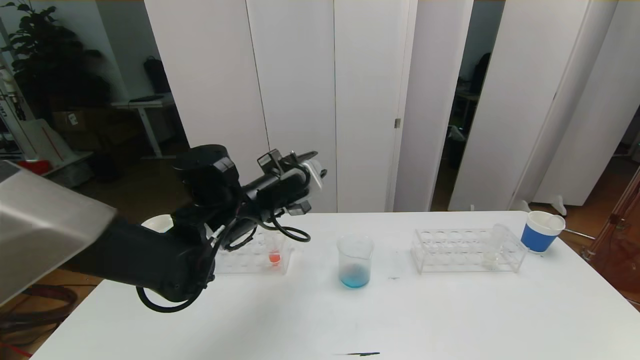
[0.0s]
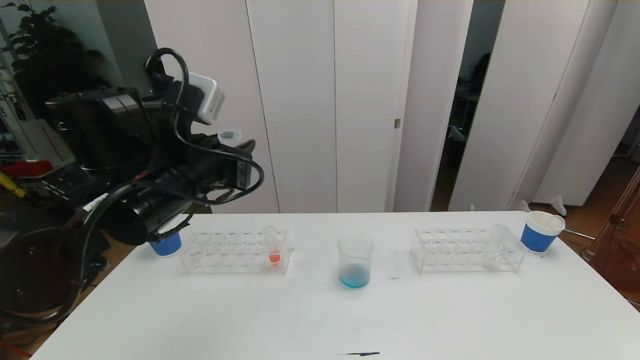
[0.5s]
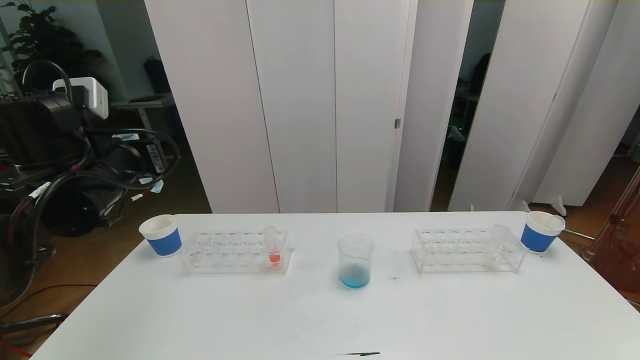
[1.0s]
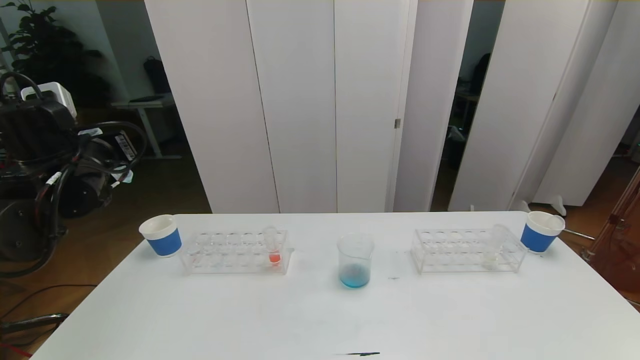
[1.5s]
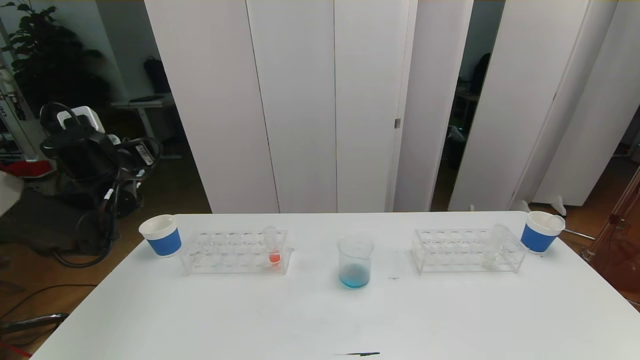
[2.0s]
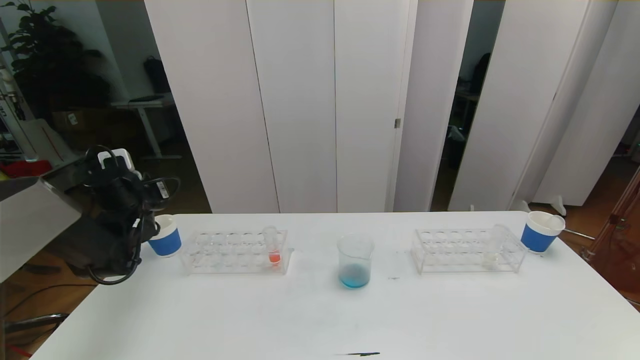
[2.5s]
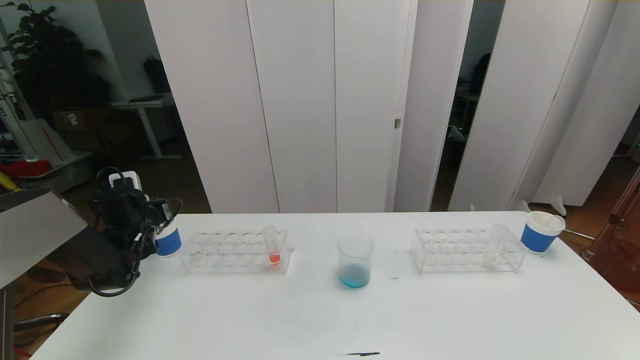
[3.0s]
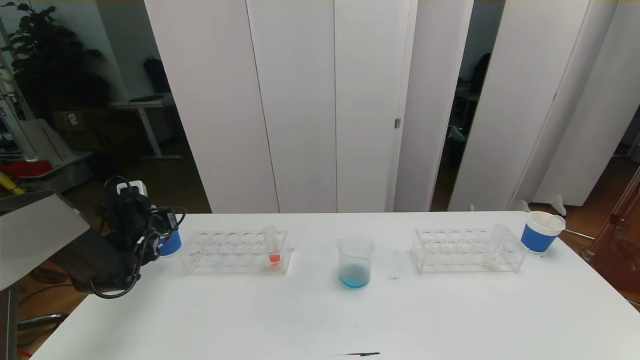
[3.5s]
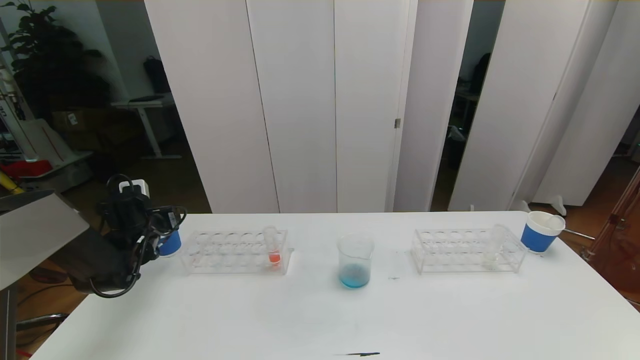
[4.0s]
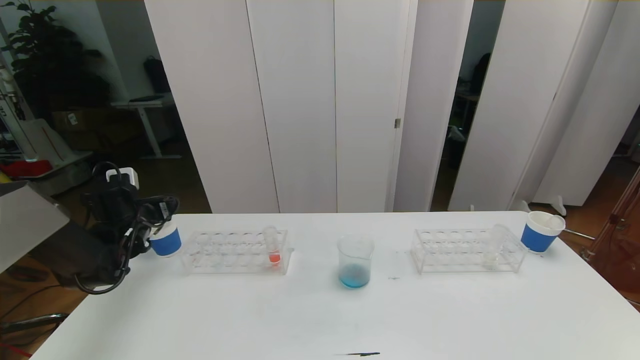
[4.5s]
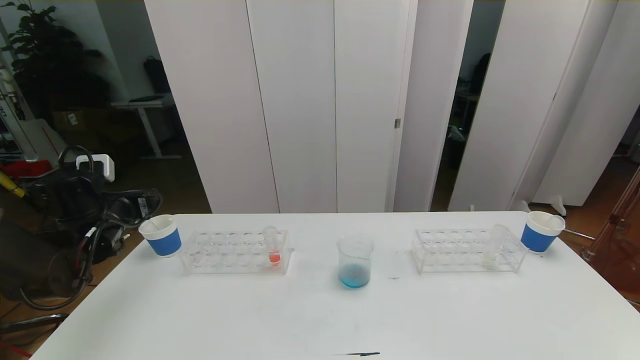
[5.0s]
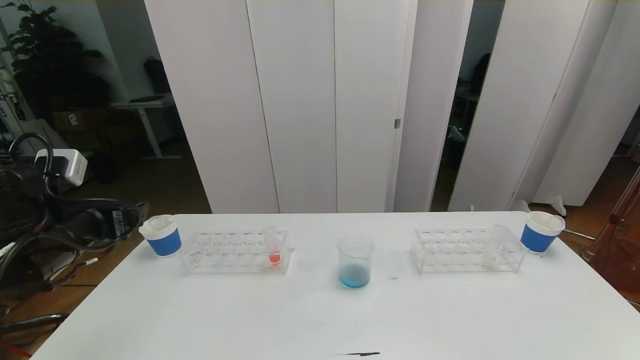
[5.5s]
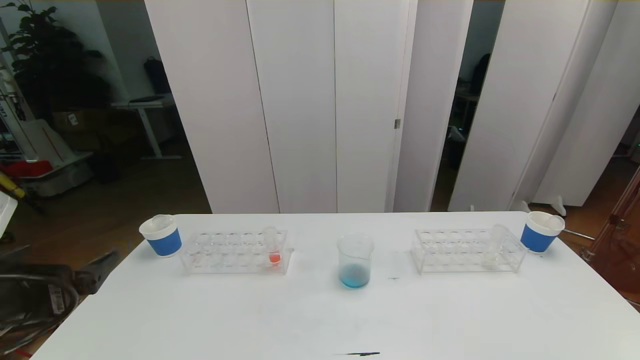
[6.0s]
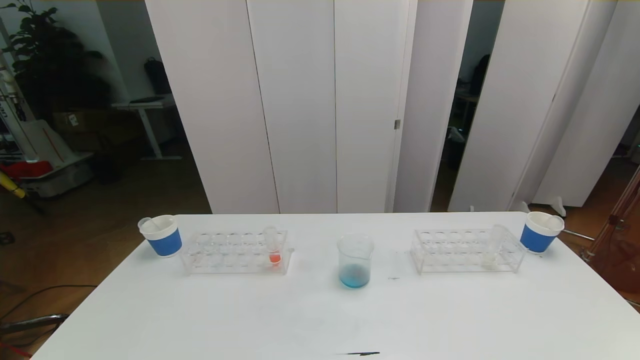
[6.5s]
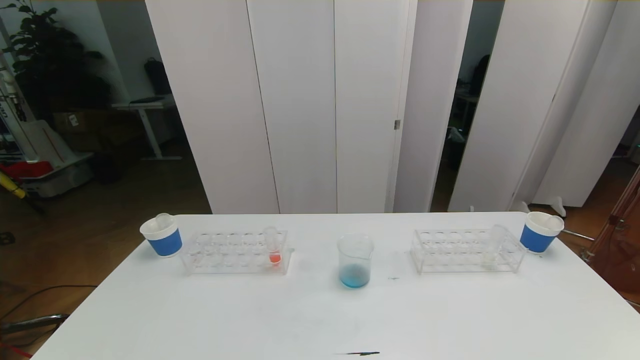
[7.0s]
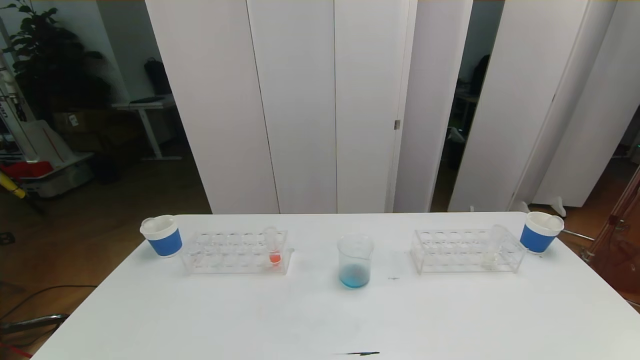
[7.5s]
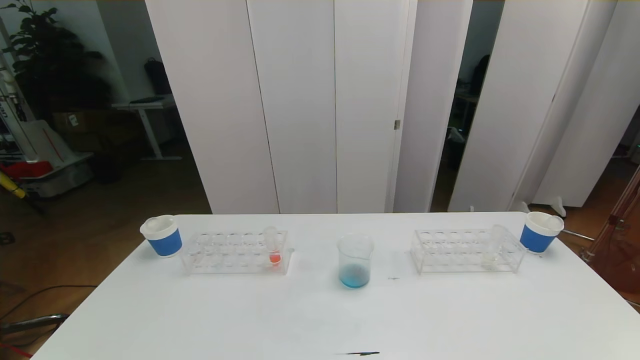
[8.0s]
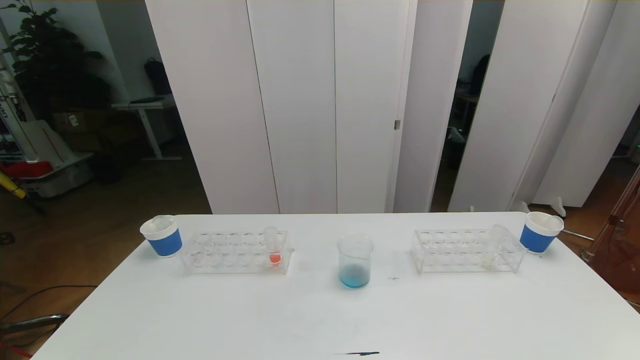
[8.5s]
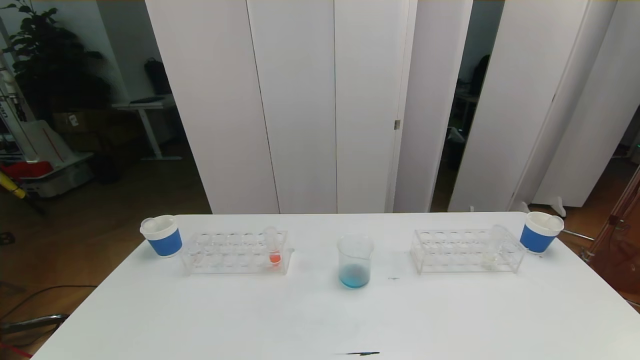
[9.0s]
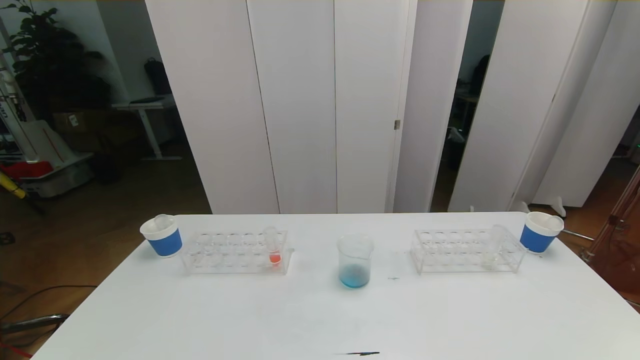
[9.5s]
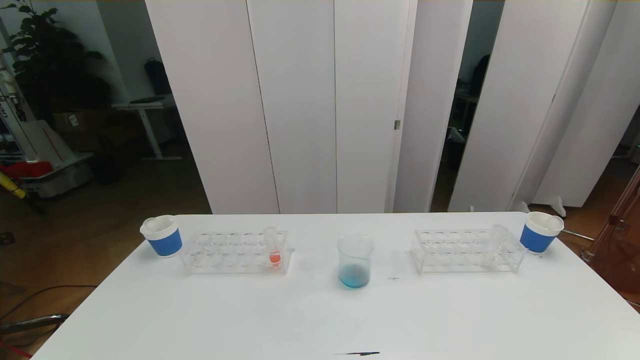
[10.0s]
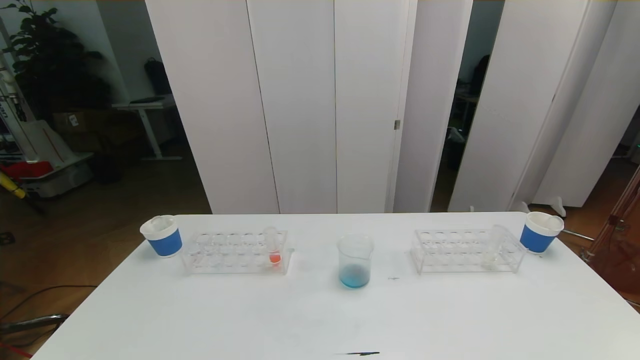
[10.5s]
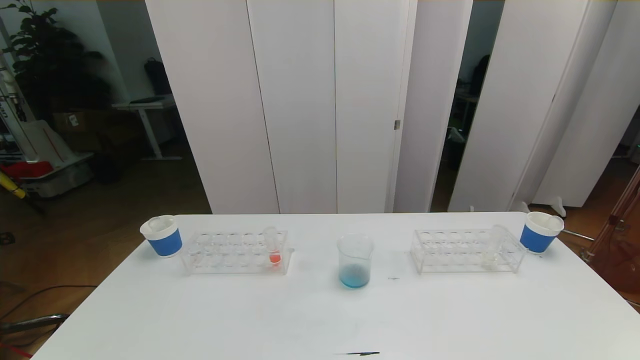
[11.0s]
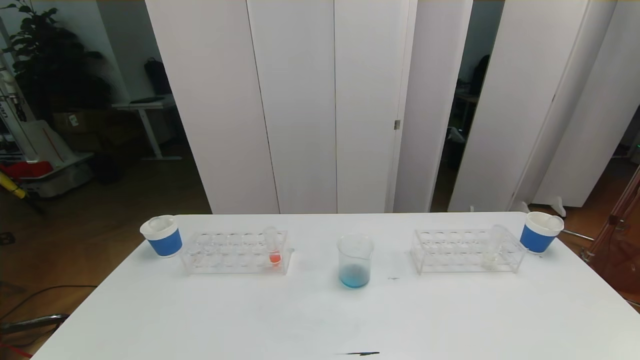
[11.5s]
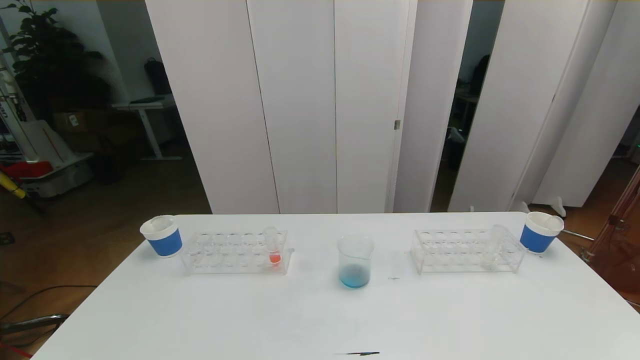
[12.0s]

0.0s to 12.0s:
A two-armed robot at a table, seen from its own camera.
Task of the whole recording: pick up the test tube with red pigment the test tube with blue pigment and the test tube with white pigment by grippers and pour them into the beaker.
Step, 0.0s to 9.0s: Pour the blue reagent into the graduated cylinder and place the test tube into the paper cup.
0.0s to 2.0s: The left gripper is displaced to the left by roughly 20 cm.
2.0s to 4.0s: The left gripper moves downward, about 15 cm, and opens its fingers.
4.0s to 6.0s: The left gripper goes about 30 cm backward and upward.
6.0s to 8.0s: The left gripper travels backward and downward by approximately 20 cm.
8.0s to 12.0s: The two grippers keep their place.

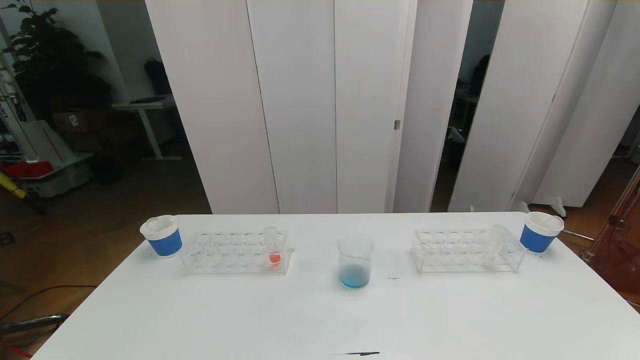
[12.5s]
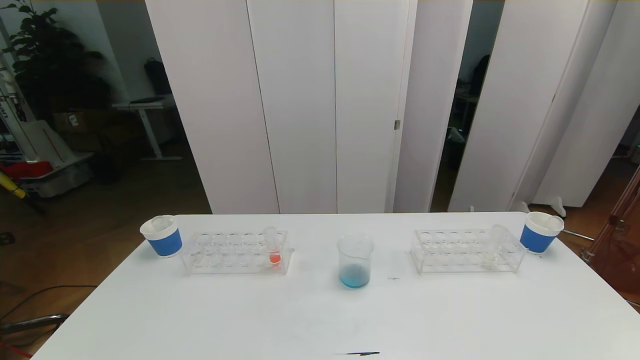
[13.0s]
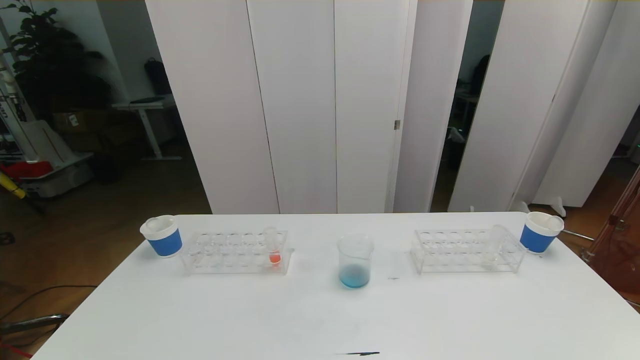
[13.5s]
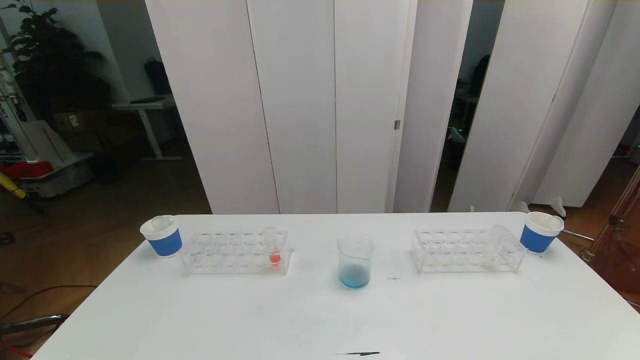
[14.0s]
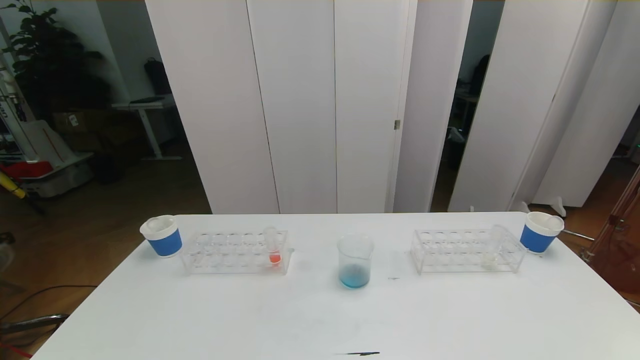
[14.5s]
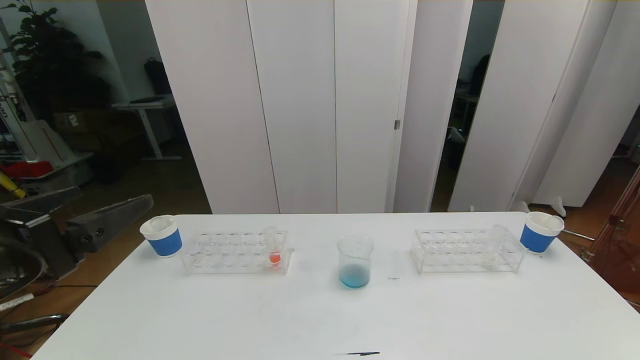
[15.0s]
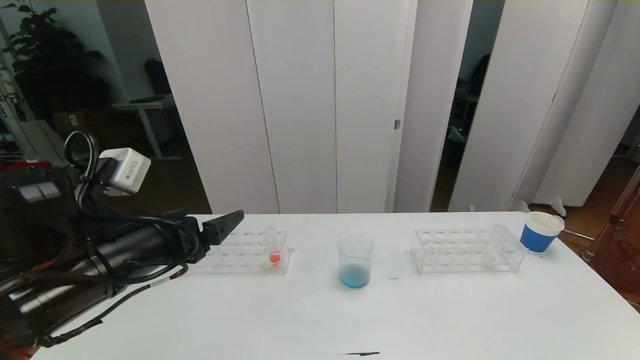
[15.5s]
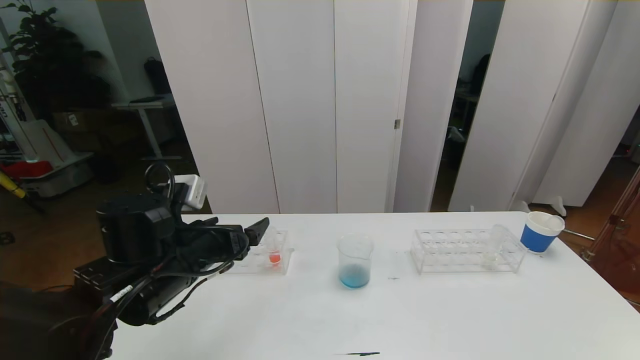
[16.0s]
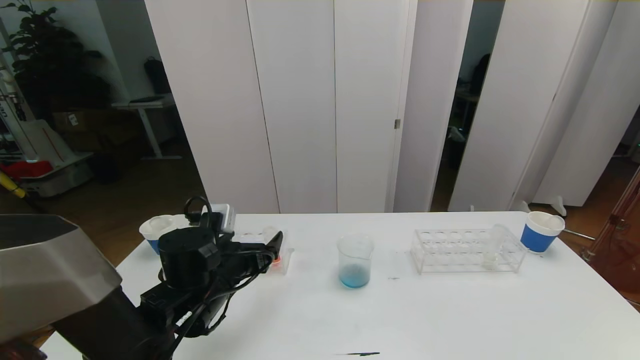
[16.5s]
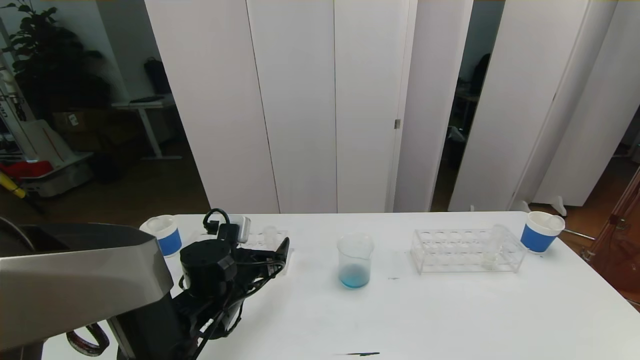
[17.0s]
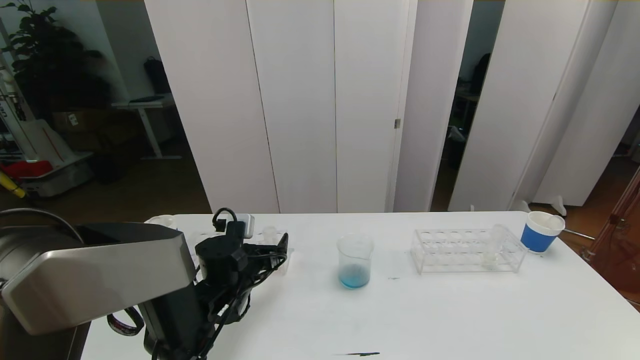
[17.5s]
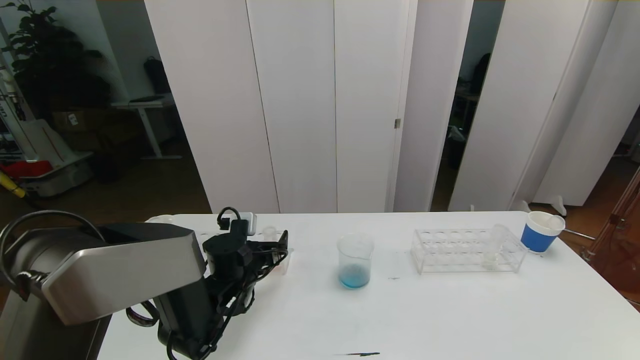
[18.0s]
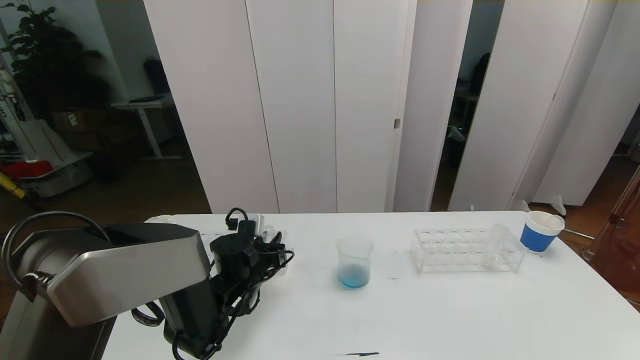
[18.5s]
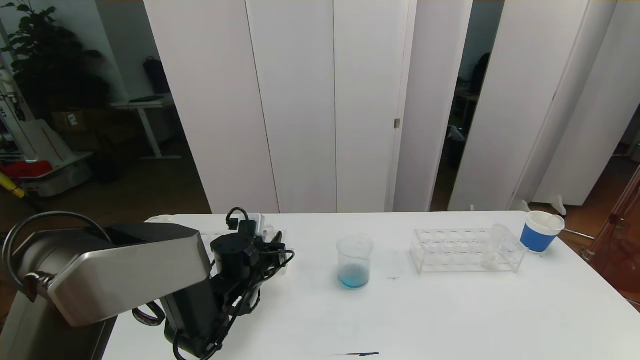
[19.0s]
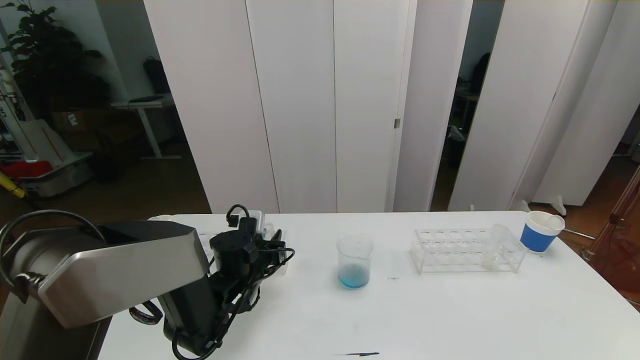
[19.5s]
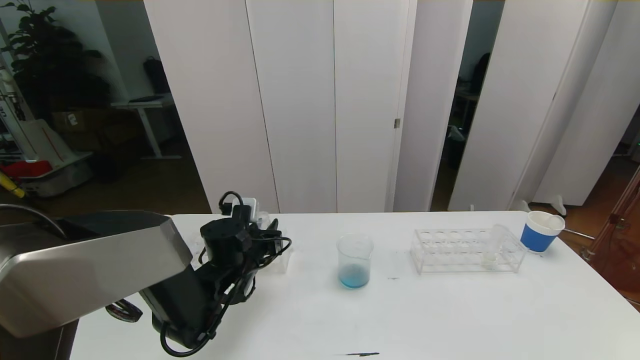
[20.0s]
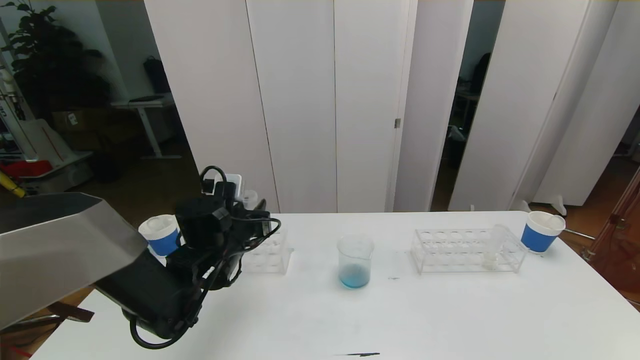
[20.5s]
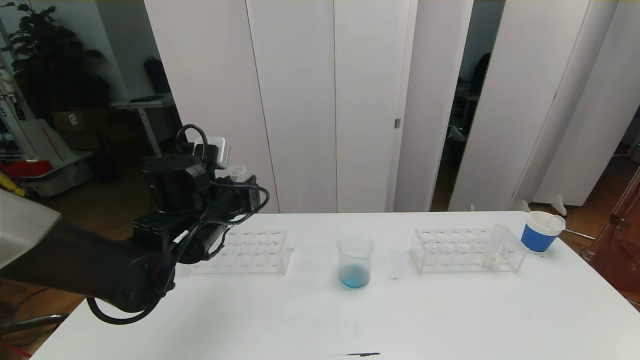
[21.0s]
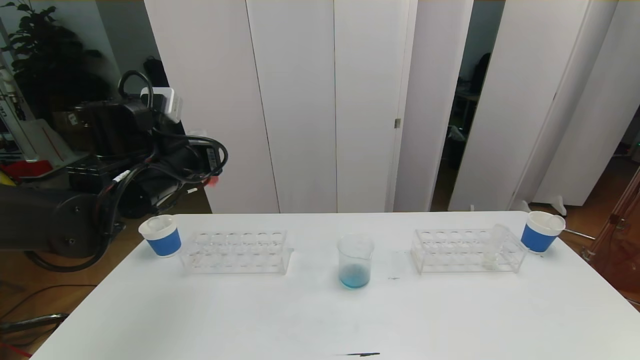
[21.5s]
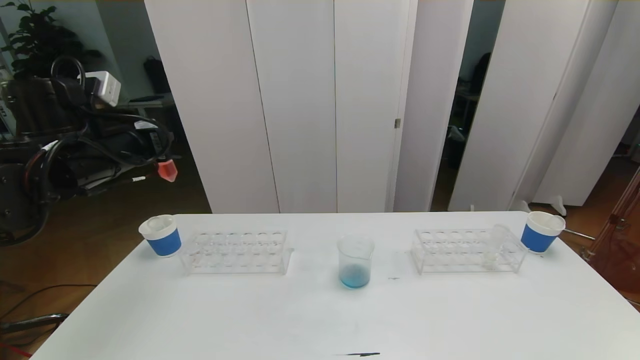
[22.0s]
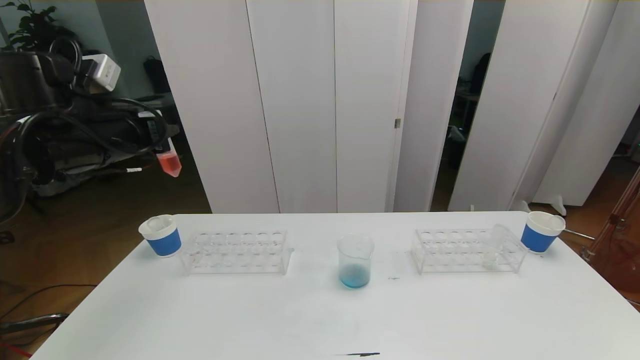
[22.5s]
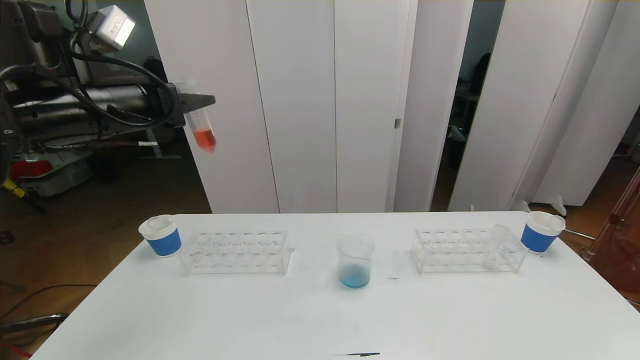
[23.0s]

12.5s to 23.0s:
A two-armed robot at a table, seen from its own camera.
Task of the whole recording: pick up the test tube with red pigment the test tube with blue pigment and the test tube with white pigment by grippers and pour them into the beaker.
14.5s to 16.5s: The left gripper travels forward, downward and to the right by approximately 30 cm.
16.5s to 19.0s: The left gripper travels forward and downward by approximately 10 cm, and closes.
19.0s to 21.0s: The left gripper heads upward, covering about 15 cm.
21.0s to 23.0s: The left gripper travels upward and to the left by approximately 15 cm.
